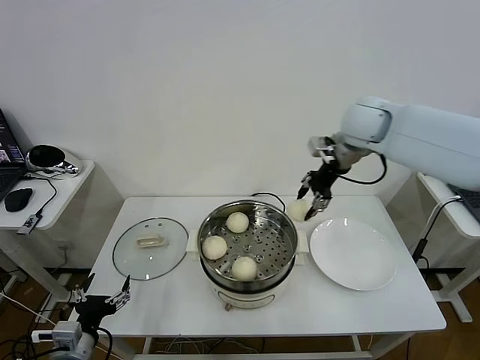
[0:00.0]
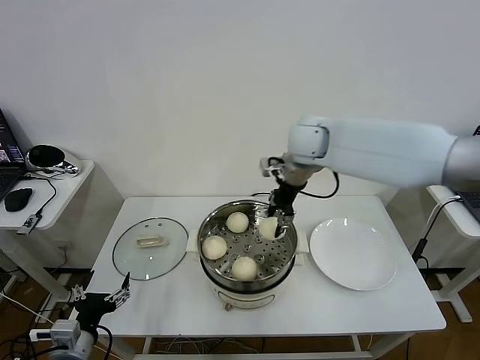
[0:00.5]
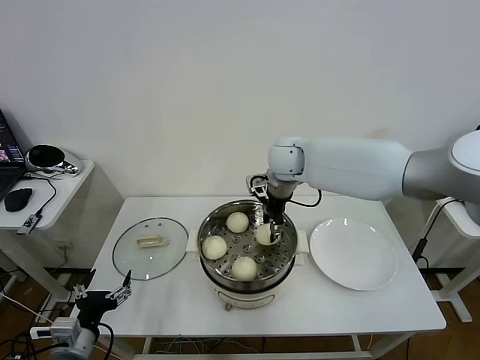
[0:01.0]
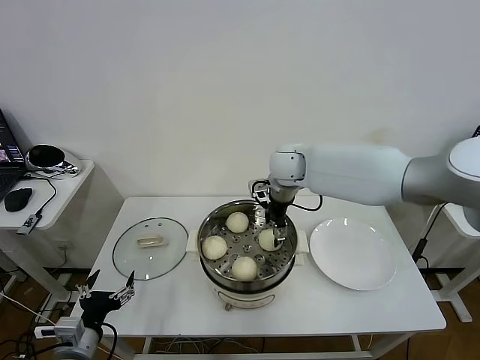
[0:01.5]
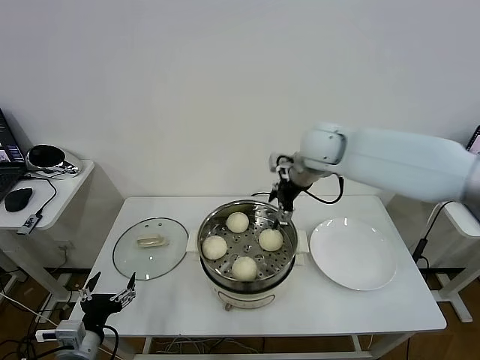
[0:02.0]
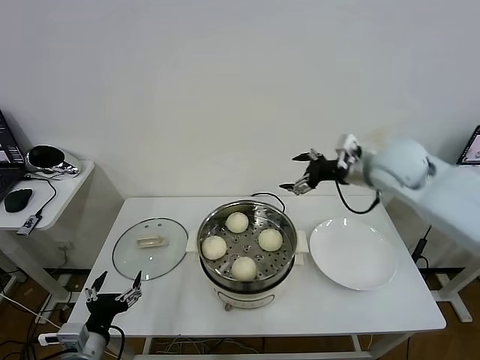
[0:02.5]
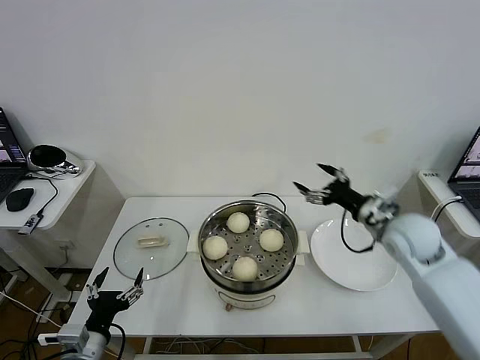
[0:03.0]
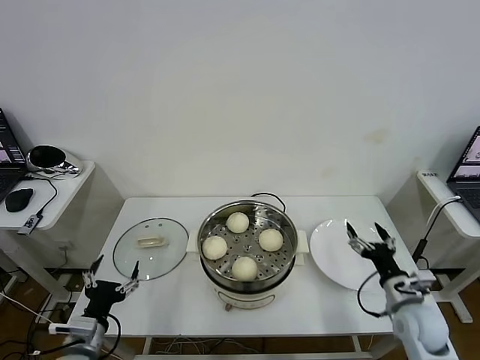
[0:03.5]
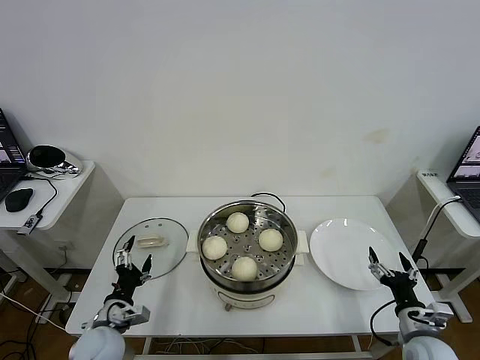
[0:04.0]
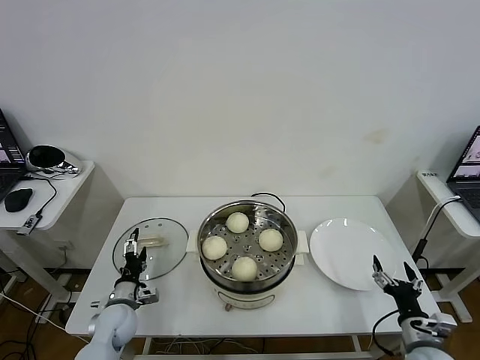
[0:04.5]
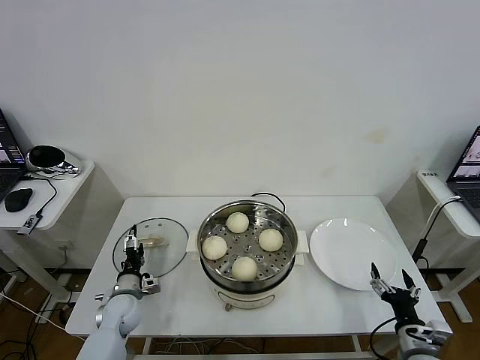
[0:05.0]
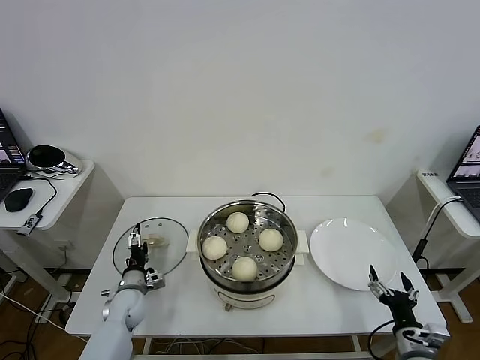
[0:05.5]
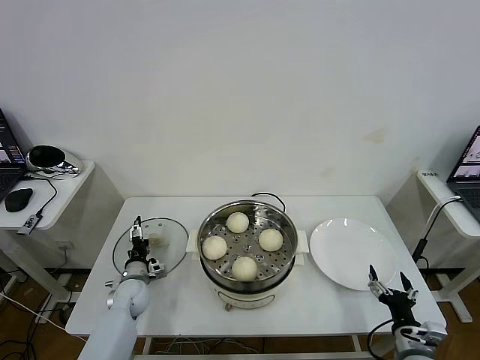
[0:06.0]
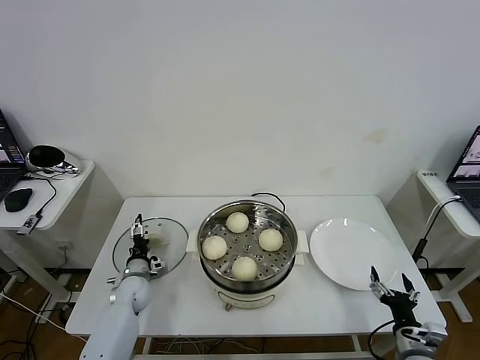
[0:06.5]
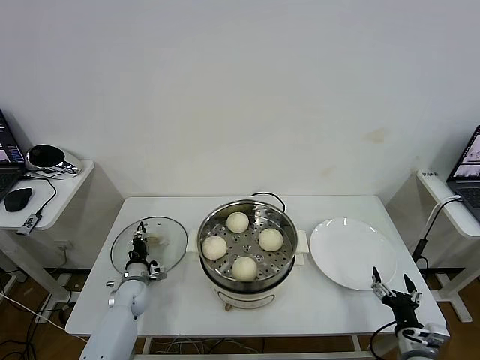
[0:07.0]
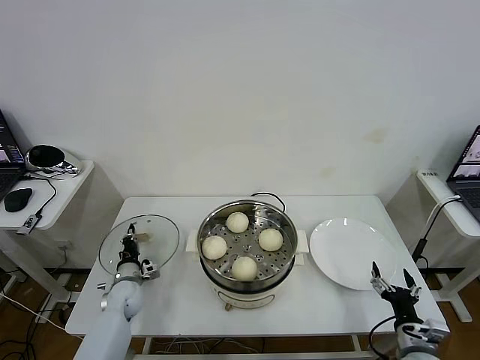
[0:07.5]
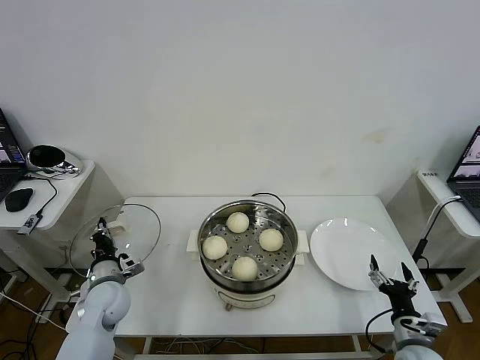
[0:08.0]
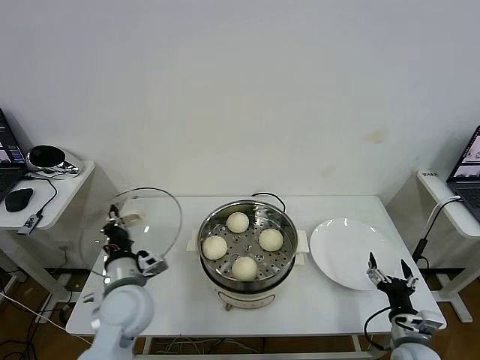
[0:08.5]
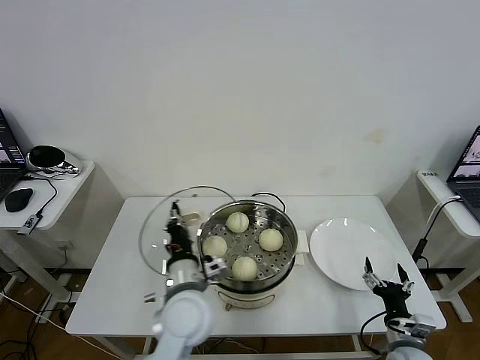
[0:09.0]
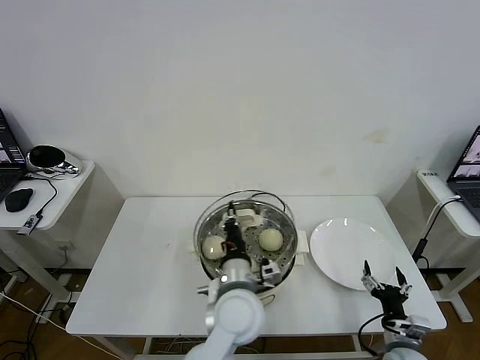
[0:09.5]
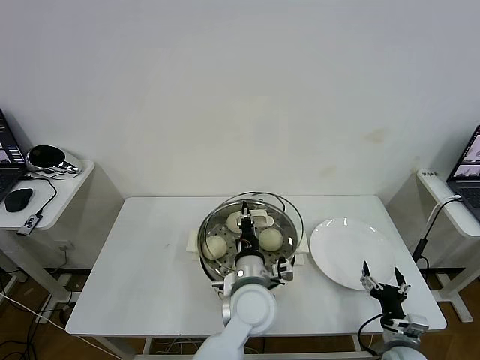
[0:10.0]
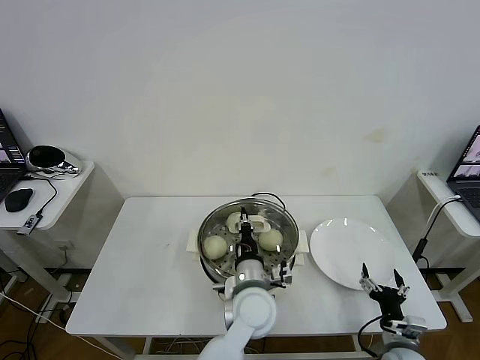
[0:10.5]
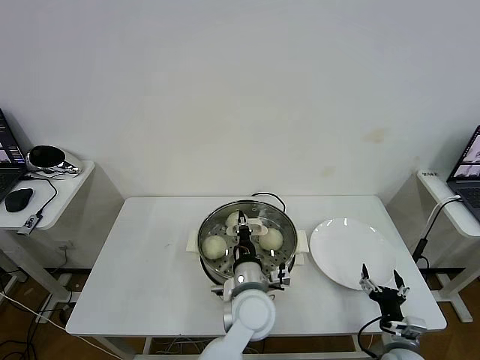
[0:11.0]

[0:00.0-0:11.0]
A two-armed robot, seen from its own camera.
Task of the whole recording: take steamed baozi put them in steamer then cover it.
Step, 0:00.0 to 0:01.5: Place the baozi on the steamer with right gripper.
Step, 0:02.0 to 0:07.0: Grasp the pot lid with left gripper.
0:00.0 to 0:02.0: The right gripper goes about 5 cm to the left, and opens.
0:02.0 to 0:03.5: The right gripper goes roughly 40 cm downward, backward and to the right.
0:03.5 to 0:05.5: The right gripper moves backward and downward, roughly 10 cm, while the left gripper shifts roughly 25 cm forward and downward.
0:05.5 to 0:07.5: The left gripper closes up.
0:07.5 to 0:09.0: The left gripper moves upward, to the right and backward, about 35 cm.
0:09.0 to 0:11.0: The left gripper moves to the right, about 15 cm.

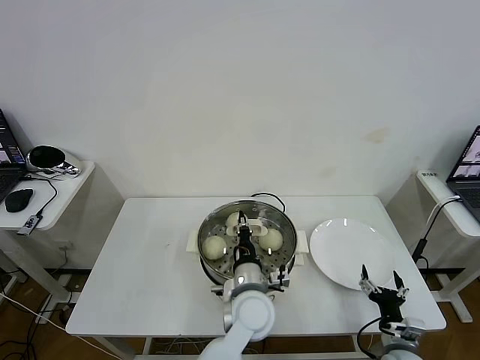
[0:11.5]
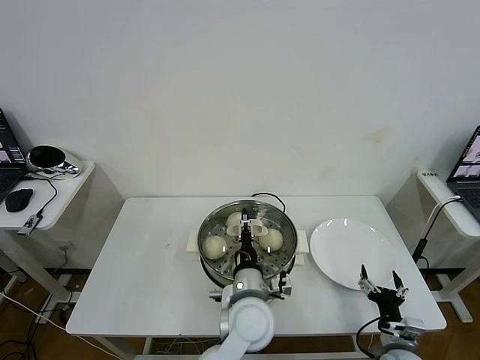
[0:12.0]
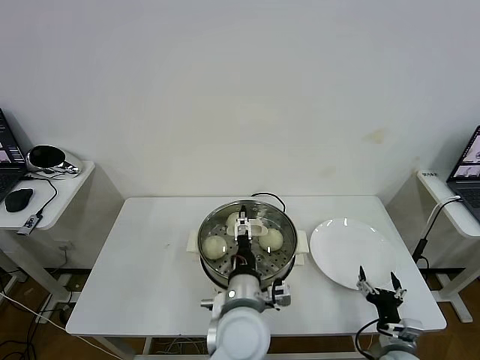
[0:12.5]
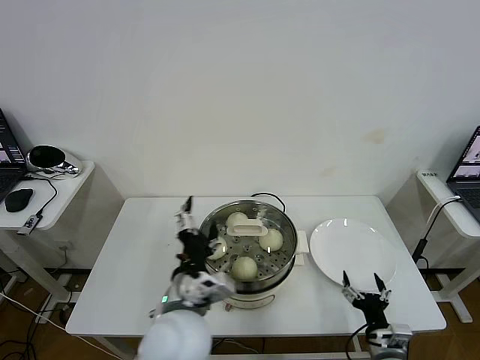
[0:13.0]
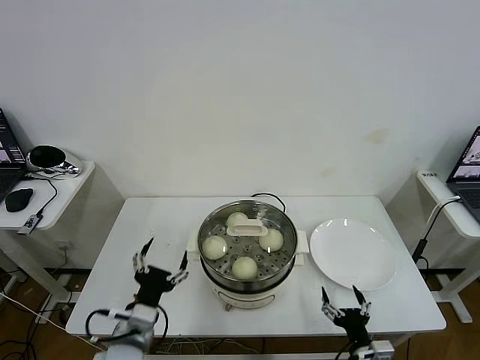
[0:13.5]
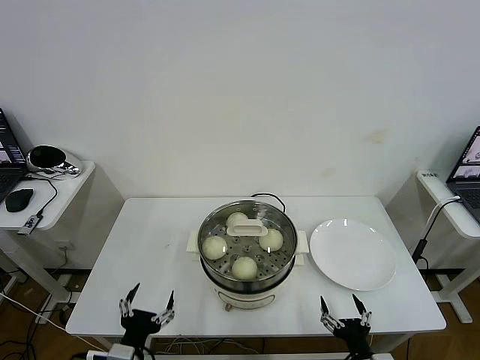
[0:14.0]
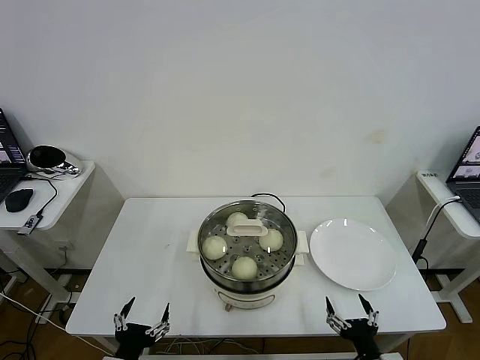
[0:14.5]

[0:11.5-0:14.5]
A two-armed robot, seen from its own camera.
Task of the whole recording: take steamed baozi put them in steamer then cover it.
0:11.5 to 0:13.0: The left gripper is displaced to the left, upward and backward by some 15 cm, and opens up.
0:13.0 to 0:14.5: The right gripper heads backward, covering approximately 5 cm. Meanwhile the left gripper is displaced to the left, downward and backward by some 25 cm.

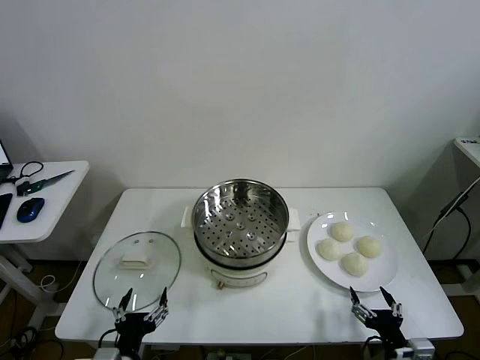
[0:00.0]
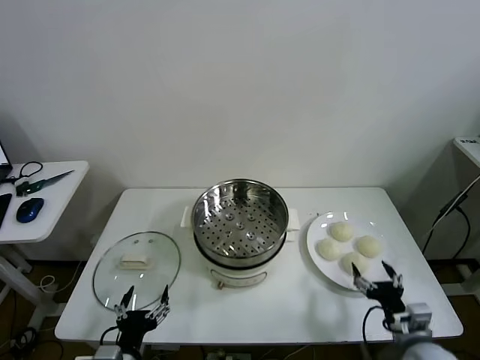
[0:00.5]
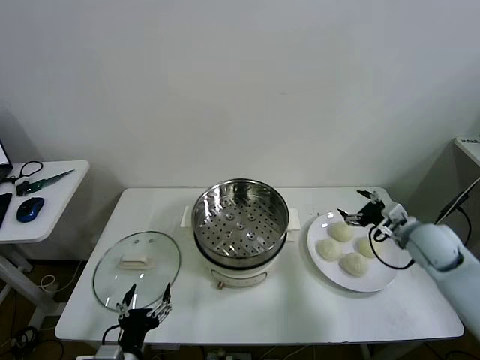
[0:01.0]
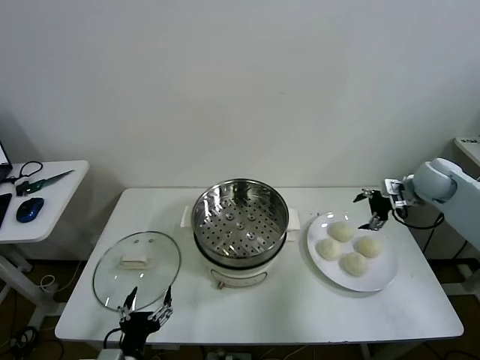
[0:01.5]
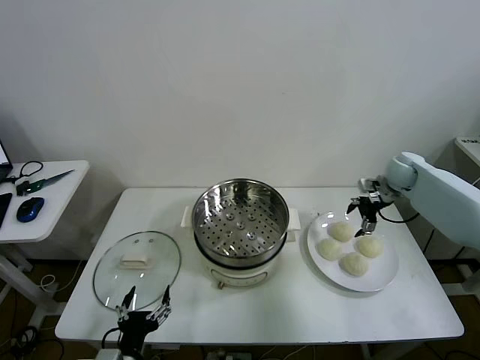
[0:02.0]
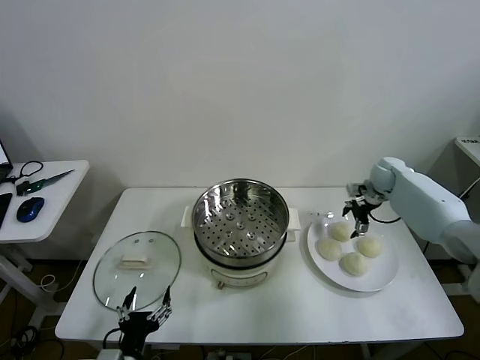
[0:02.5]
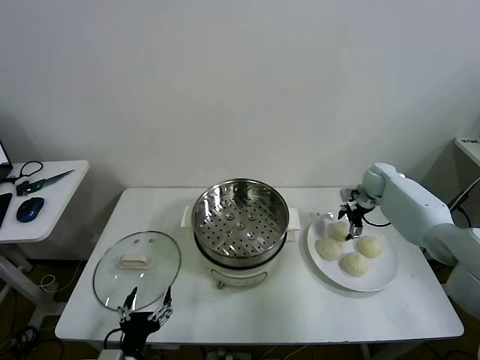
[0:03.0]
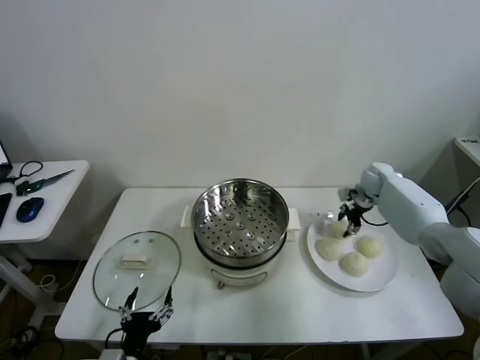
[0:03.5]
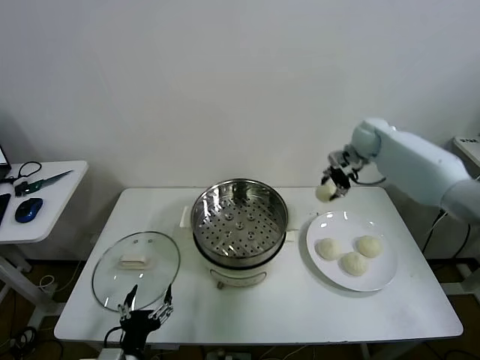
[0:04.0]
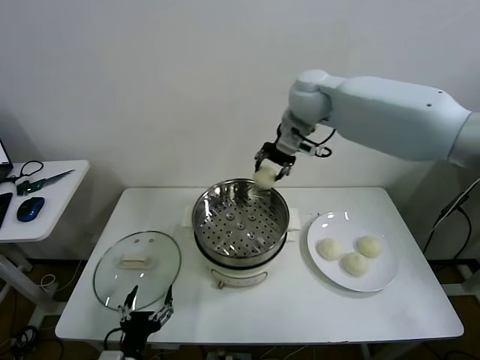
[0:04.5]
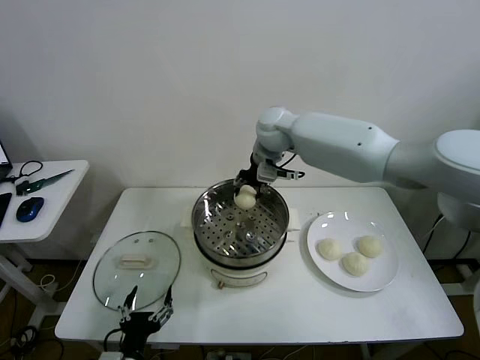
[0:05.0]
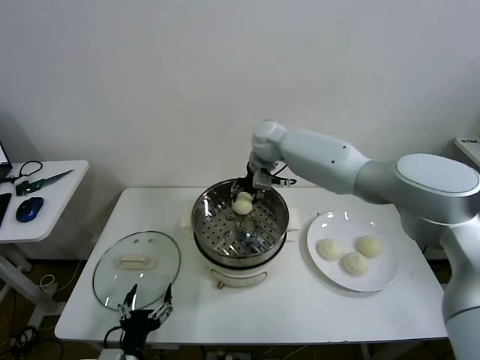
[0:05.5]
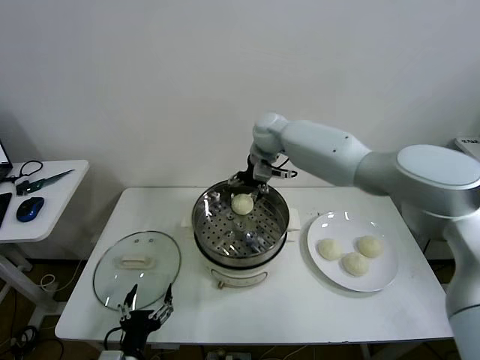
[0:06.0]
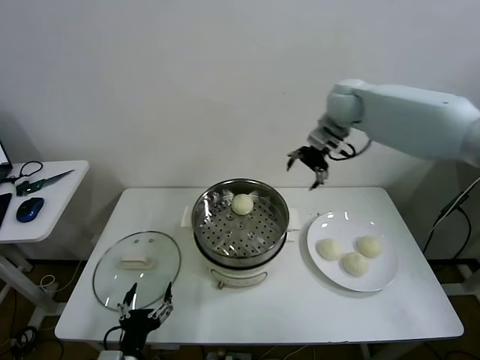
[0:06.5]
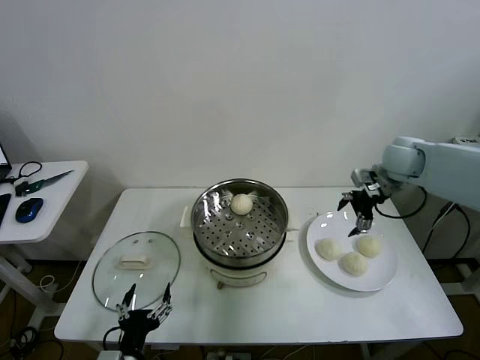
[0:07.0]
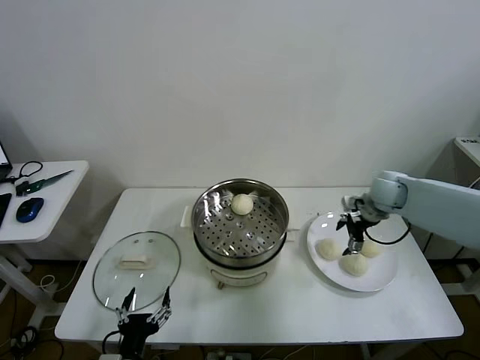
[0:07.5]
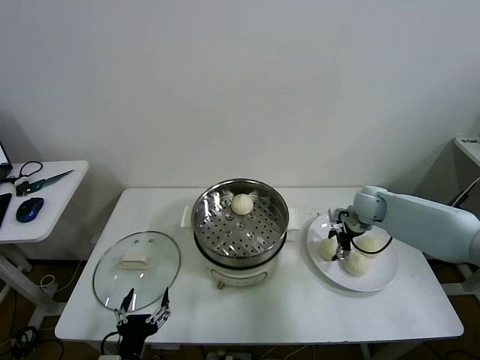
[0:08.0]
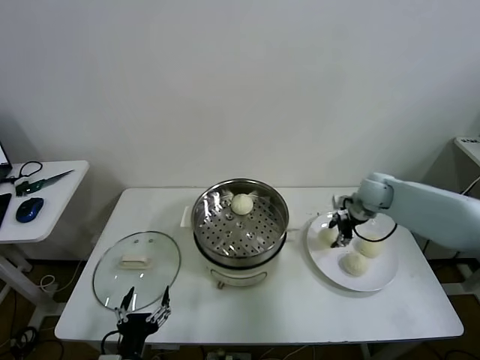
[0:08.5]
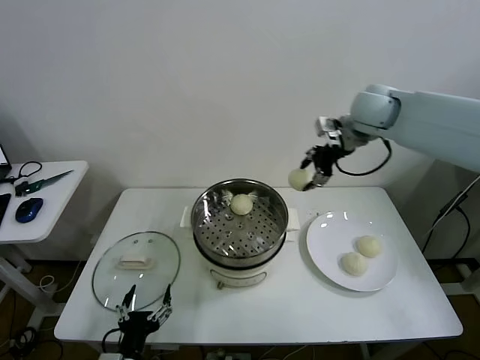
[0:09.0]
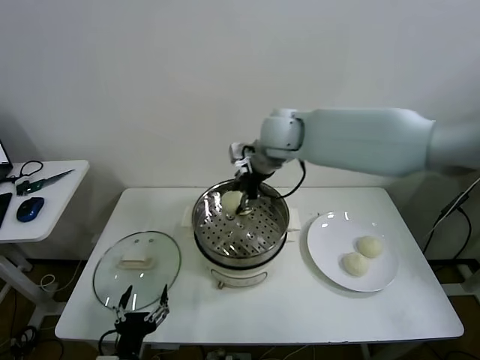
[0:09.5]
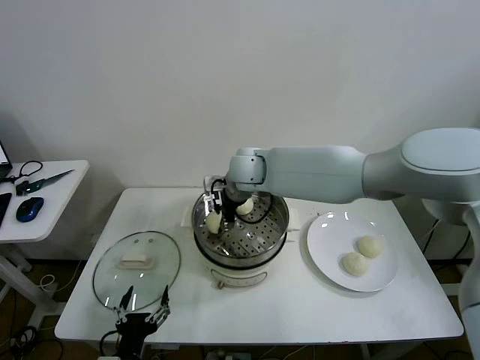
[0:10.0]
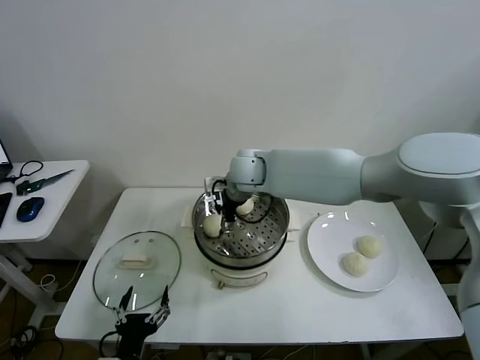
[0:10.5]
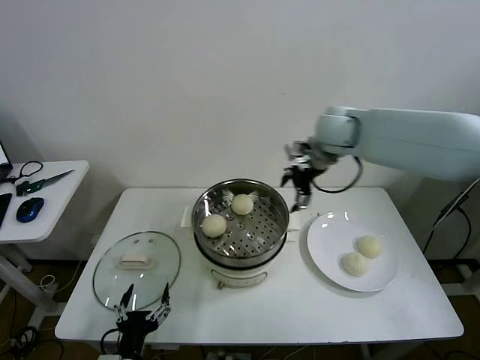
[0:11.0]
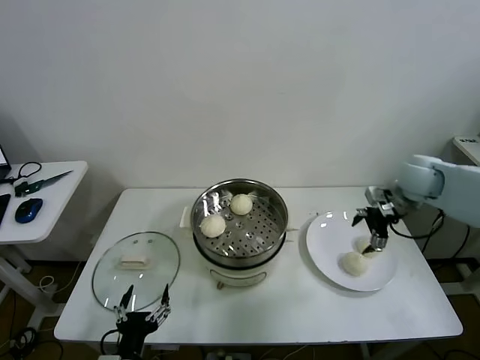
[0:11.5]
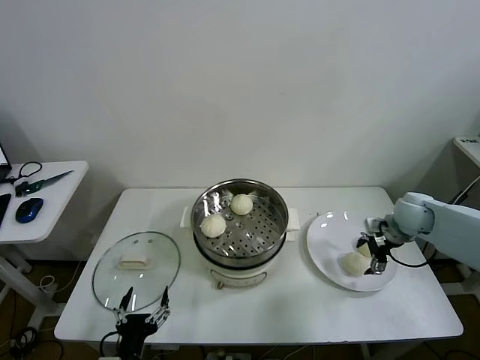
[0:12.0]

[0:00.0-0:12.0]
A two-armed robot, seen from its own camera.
Task of the whole recording: take steamed baozi put them in steamer then cover it.
Step, 0:00.0 to 0:03.0: Grasp the baozi in the plate with right gripper.
Step, 0:03.5 to 0:05.5: Place the baozi on the steamer with right gripper.
Step, 0:06.5 to 0:08.0: Grasp the baozi in the plate with right gripper.
Step, 0:08.5 to 0:10.5: Place the baozi on the steamer with right gripper.
0:02.0 to 0:04.0: The right gripper shifts about 20 cm upward and to the left, and closes its fingers.
0:04.0 to 0:06.0: The right gripper is displaced to the left by roughly 20 cm, and opens its fingers.
0:06.0 to 0:08.0: The right gripper goes roughly 30 cm to the right and downward, and closes.
0:08.0 to 0:10.0: The right gripper shifts roughly 35 cm to the left and upward.
0:10.0 to 0:12.0: The right gripper is displaced to the right by roughly 40 cm, and opens.
